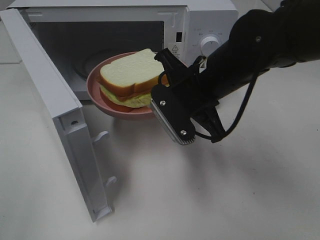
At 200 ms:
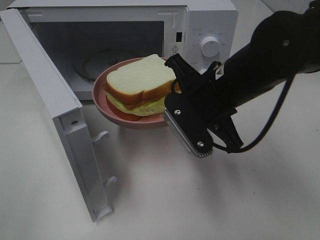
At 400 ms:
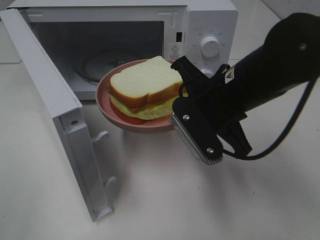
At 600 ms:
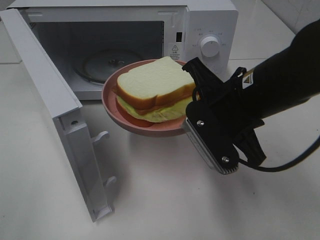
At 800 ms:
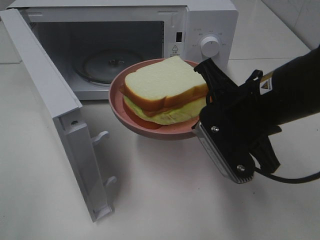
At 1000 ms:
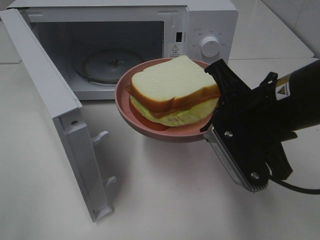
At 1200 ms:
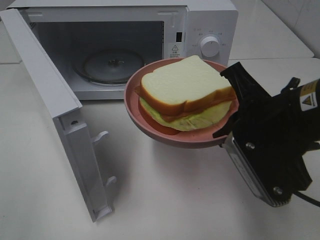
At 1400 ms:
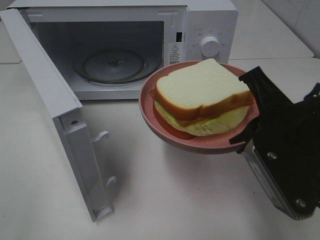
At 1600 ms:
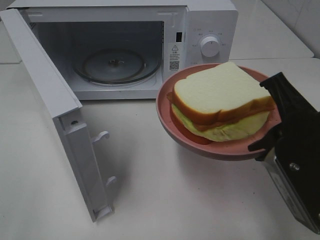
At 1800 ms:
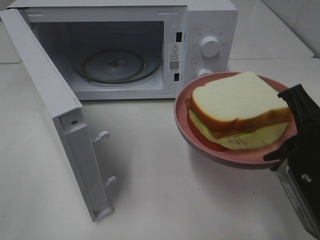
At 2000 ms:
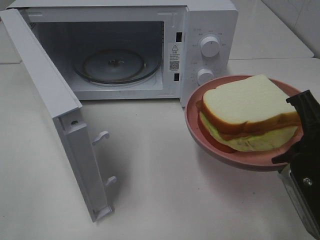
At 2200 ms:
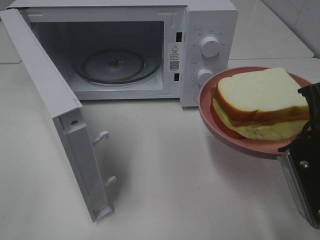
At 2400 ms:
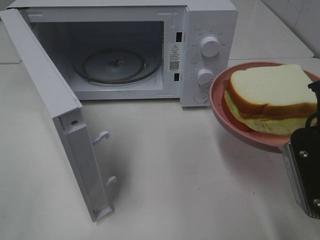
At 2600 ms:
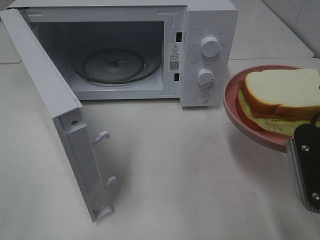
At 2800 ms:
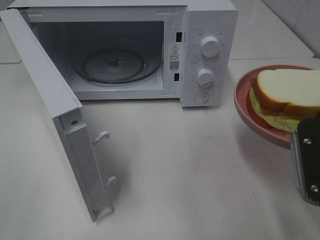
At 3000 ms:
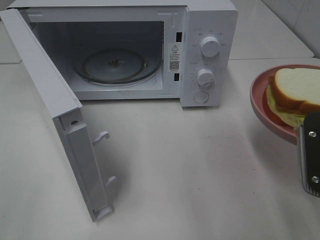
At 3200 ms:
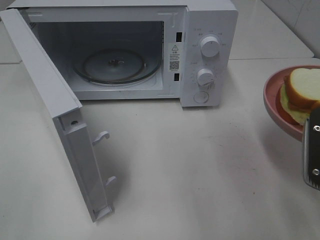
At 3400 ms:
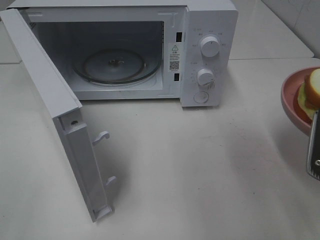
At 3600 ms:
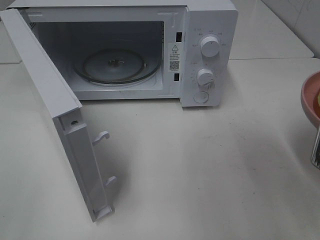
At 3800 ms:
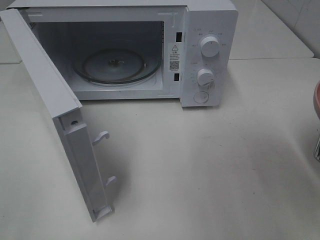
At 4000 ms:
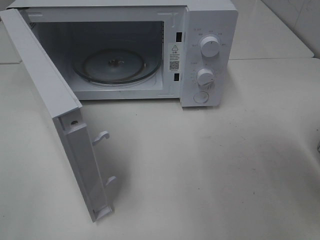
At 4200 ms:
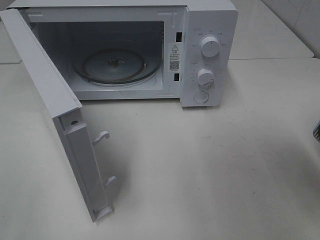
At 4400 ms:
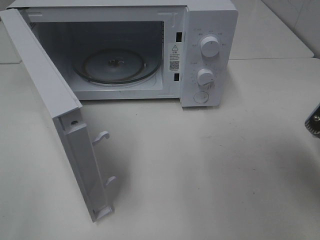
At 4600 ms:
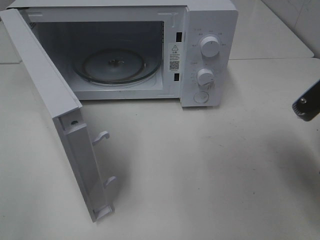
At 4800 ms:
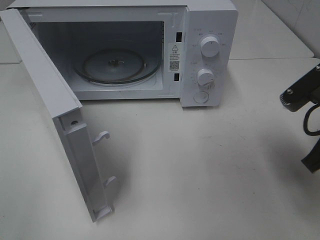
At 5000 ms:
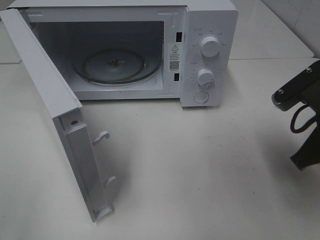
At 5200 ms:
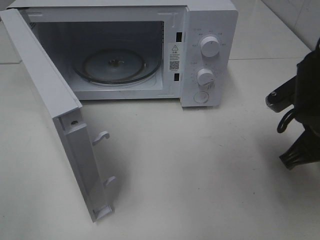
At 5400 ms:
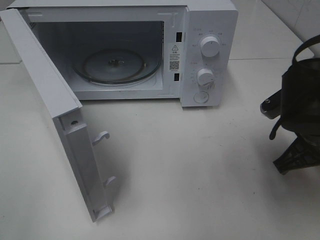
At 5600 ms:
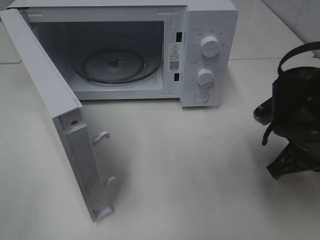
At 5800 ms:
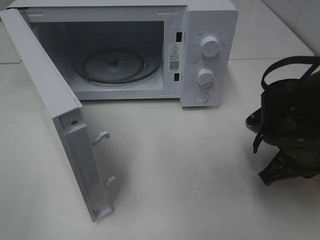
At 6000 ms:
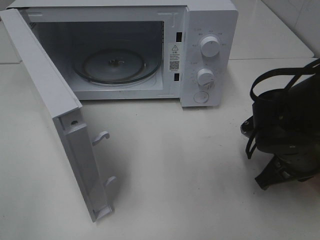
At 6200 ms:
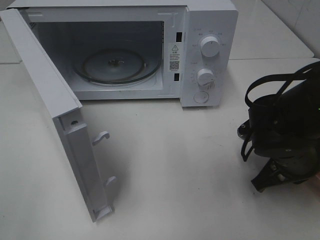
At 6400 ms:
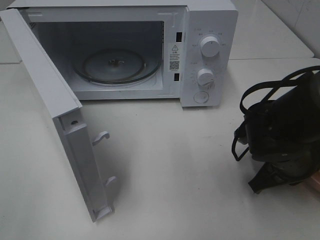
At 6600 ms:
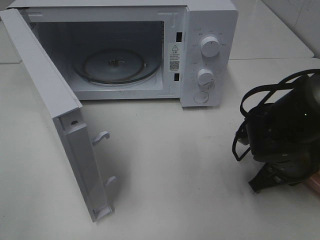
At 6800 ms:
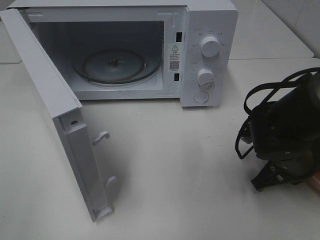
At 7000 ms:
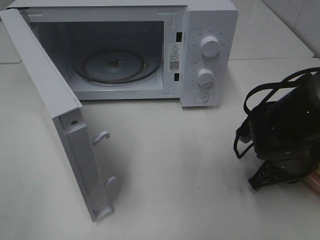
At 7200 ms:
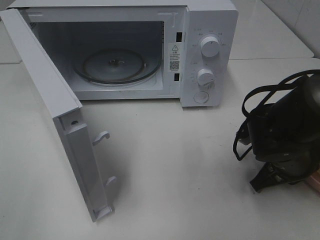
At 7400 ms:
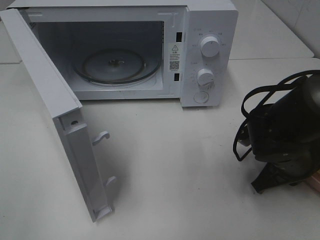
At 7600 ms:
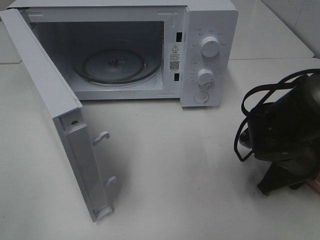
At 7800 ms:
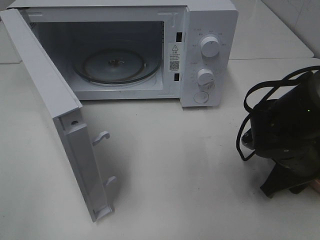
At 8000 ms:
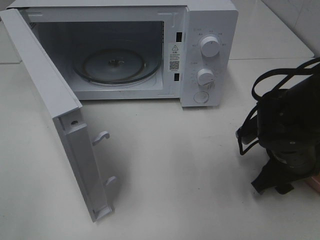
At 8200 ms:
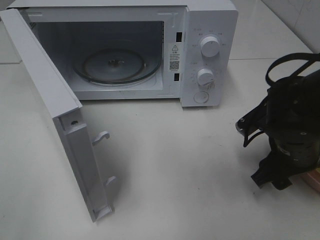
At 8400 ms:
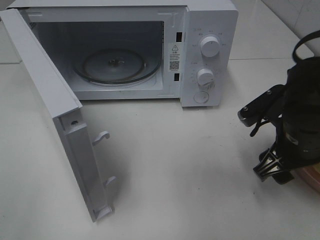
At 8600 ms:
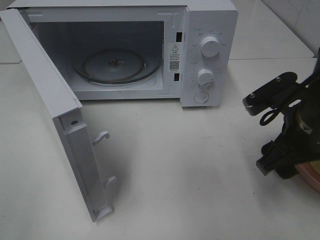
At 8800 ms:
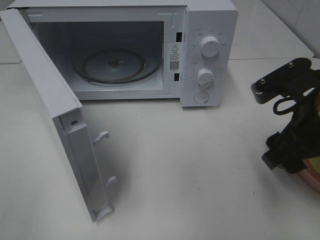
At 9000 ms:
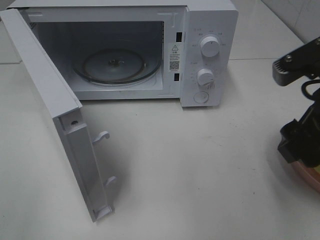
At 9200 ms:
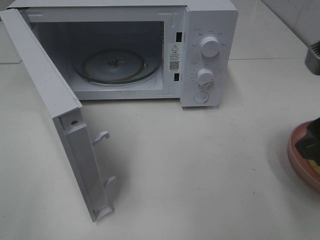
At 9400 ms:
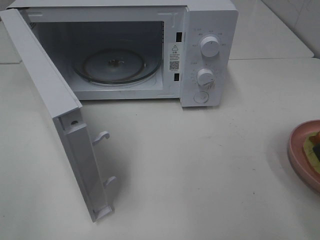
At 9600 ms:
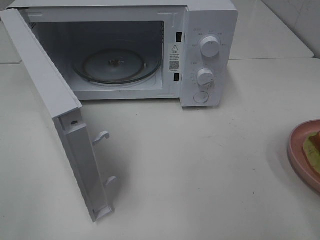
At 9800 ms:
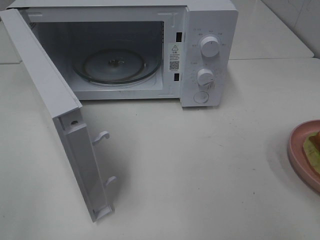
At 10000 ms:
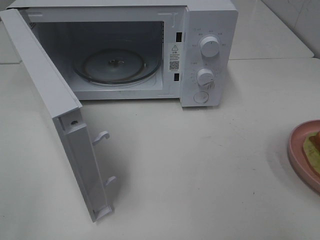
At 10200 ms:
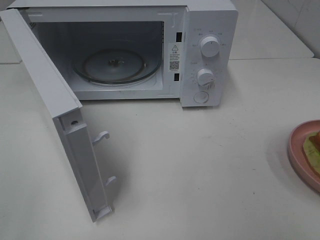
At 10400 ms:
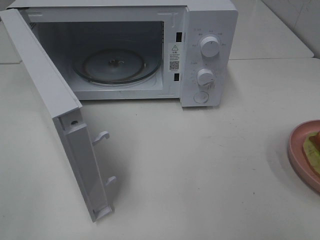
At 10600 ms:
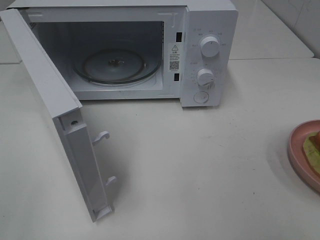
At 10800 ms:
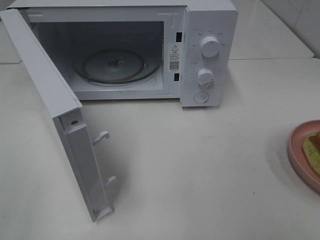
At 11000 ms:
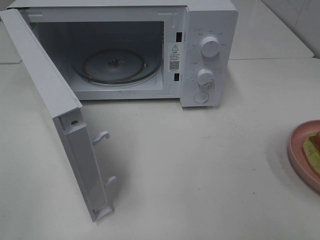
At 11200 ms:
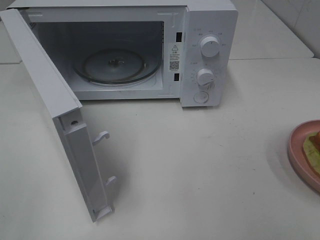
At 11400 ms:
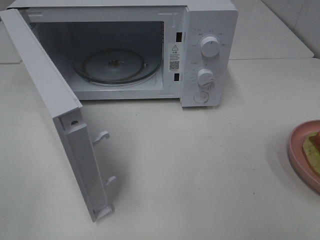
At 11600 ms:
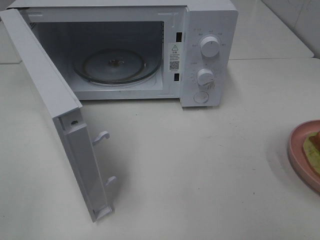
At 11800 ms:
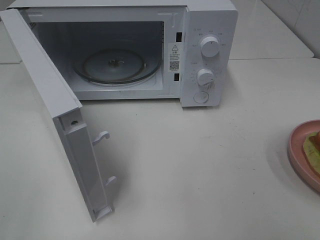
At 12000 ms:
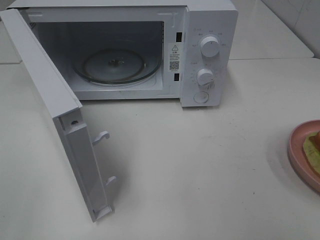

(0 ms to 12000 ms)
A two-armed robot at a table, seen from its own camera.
Task of the whole recording: Heat Sandwich.
Step, 0 ms - 9000 ms: Right hand: place the plate on the table.
0 ms - 1600 ms: The right gripper shifts roughly 15 cm backward and to the right.
1600 ms - 3000 ms: The right gripper moves some 5 cm.
4400 ms - 6000 ms: The right gripper shifts some 15 cm downward, forward and to the left.
6000 ms - 7600 ms: The right gripper opens.
7600 ms - 9000 ms: The right gripper moves upward, roughly 15 cm.
9000 ms - 10400 ms: The right gripper shifts roughly 15 cm backward and to the right.

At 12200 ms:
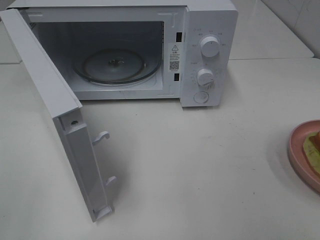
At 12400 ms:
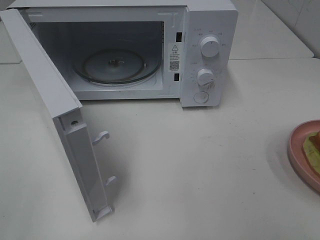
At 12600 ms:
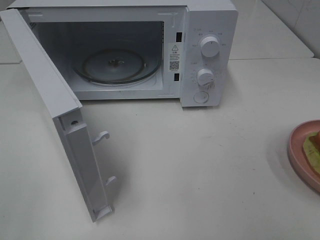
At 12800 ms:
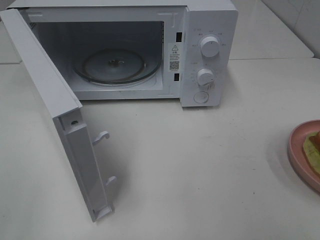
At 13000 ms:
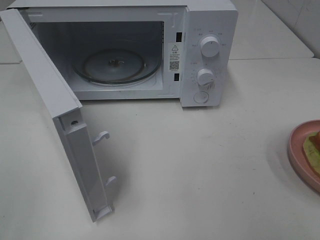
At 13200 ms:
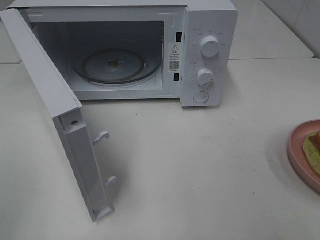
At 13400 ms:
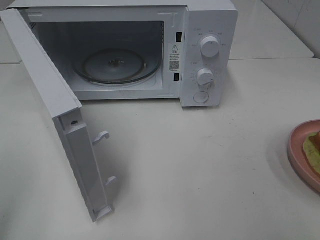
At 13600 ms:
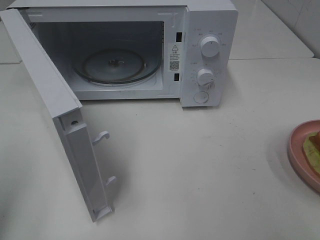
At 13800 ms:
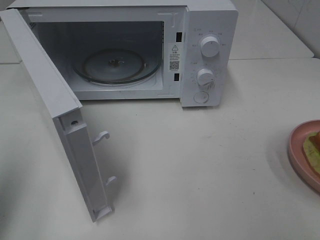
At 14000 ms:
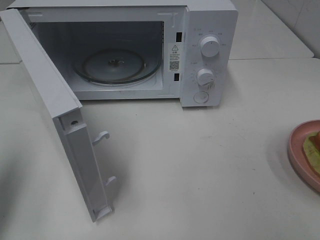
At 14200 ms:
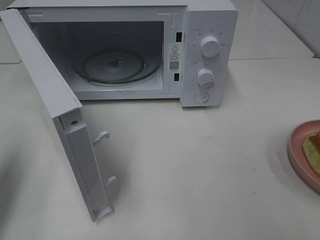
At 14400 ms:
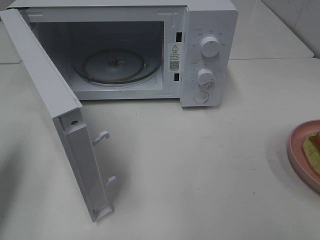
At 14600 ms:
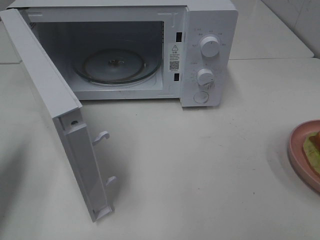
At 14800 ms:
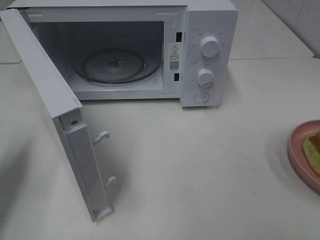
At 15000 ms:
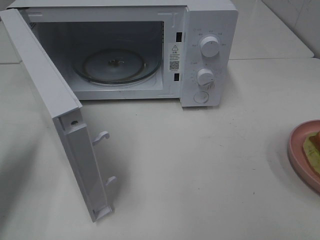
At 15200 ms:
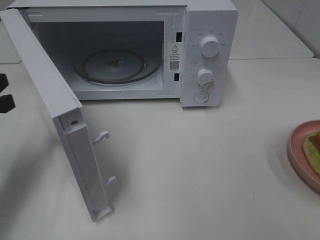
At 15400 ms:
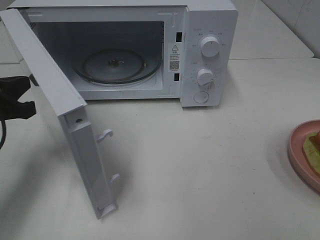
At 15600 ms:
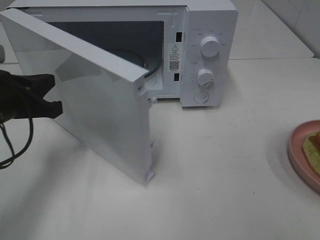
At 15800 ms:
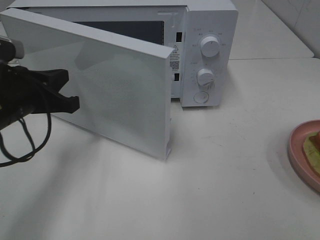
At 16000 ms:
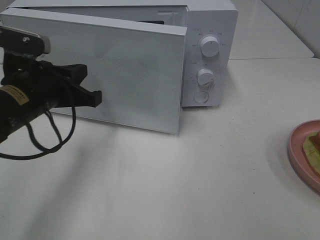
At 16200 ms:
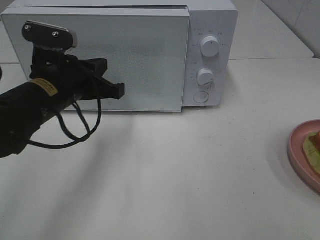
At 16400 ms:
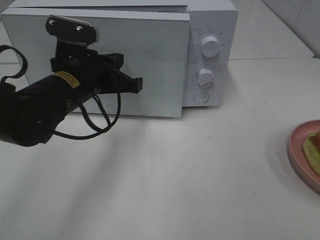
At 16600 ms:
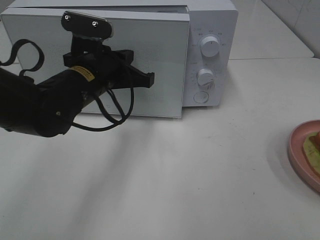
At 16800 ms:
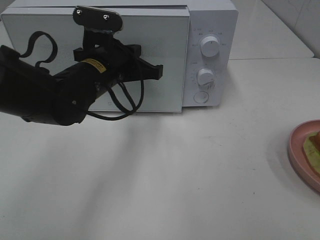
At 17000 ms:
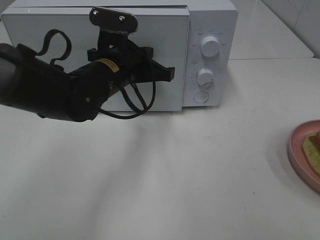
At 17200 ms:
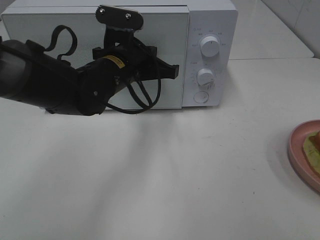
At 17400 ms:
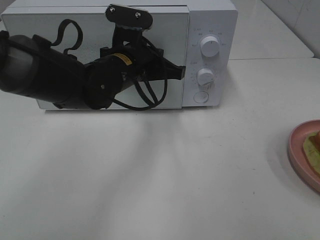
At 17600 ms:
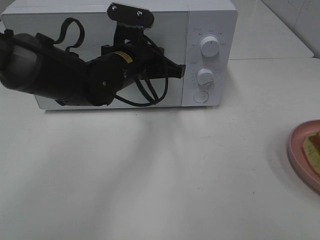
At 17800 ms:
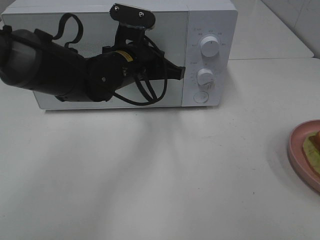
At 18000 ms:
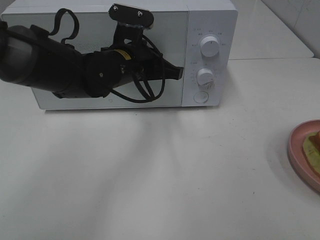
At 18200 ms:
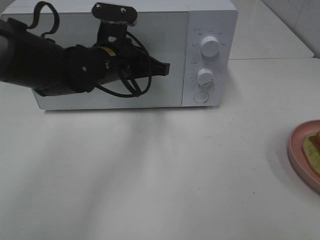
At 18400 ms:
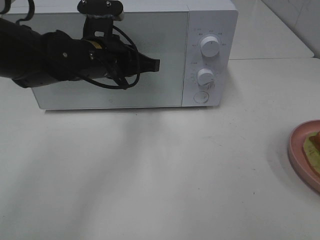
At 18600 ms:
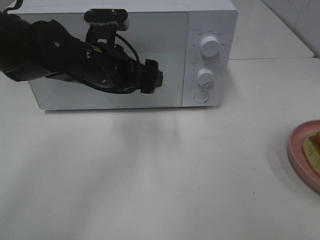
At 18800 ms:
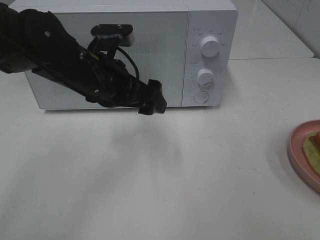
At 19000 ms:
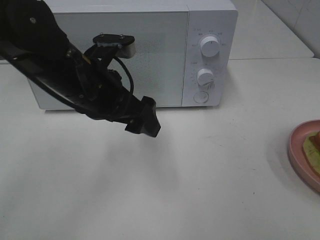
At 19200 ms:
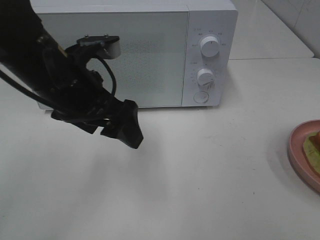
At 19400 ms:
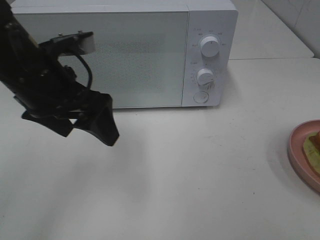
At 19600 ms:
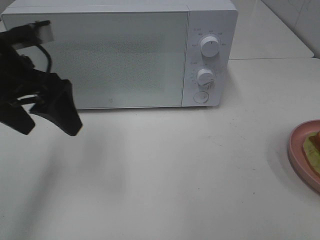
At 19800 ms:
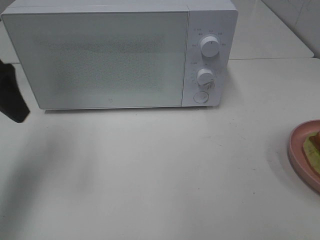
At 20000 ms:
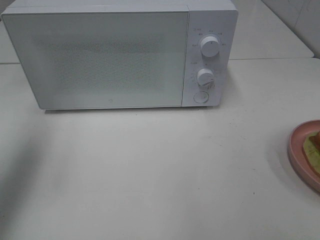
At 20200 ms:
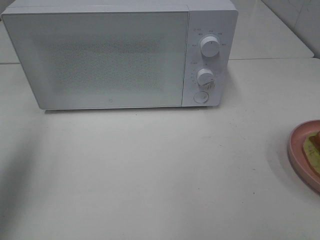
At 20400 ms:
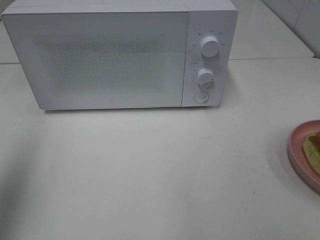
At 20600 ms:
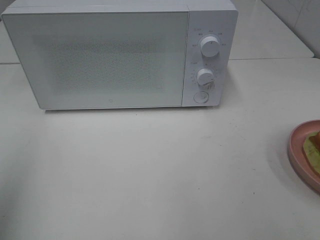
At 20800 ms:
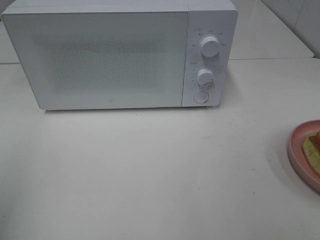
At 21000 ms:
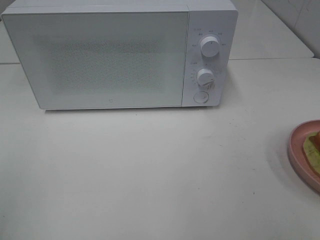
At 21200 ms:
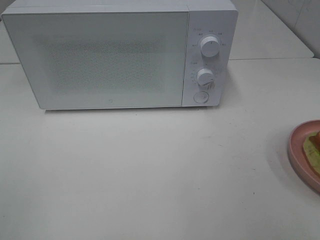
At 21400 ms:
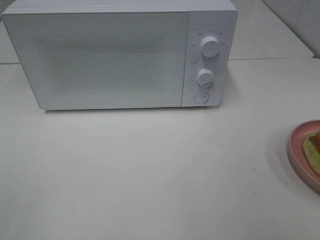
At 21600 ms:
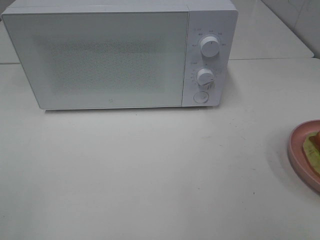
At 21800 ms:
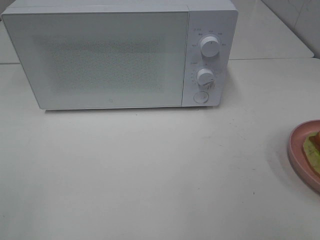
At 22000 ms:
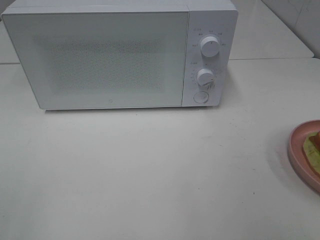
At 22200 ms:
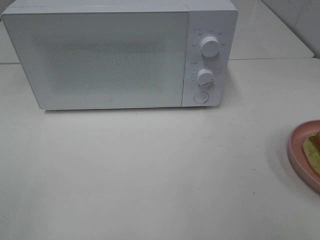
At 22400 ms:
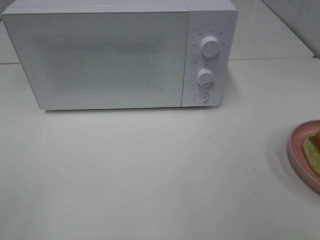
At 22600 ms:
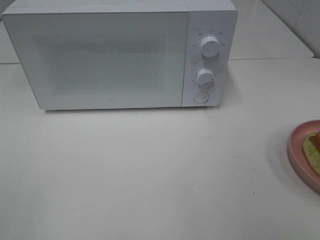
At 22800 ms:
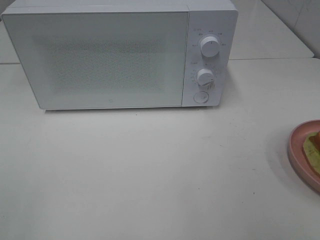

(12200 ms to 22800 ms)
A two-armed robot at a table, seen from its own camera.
Task of the whole recording: Heat Sandwich.
Step, 12200 ms - 18800 ms: Left hand: close the microwave door.
12200 ms - 13800 ms: The left gripper is displaced forward by some 15 cm, and closes up.
13800 ms - 15200 ms: The left gripper shifts about 15 cm forward and downward.
15200 ms - 16800 ms: The left gripper heads to the right and forward, covering approximately 25 cm.
16800 ms - 18200 ms: There are only small adjustments of the grippers.
18200 ms - 19800 ms: The left gripper moves to the left, upward and backward, approximately 25 cm, and opens.
19800 ms - 21200 ms: The left gripper heads backward, covering approximately 25 cm.
